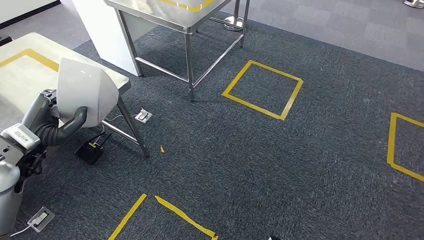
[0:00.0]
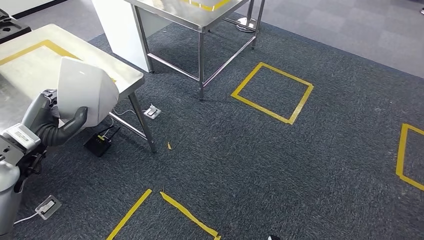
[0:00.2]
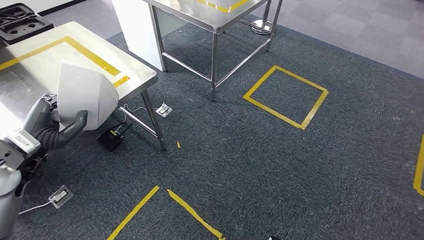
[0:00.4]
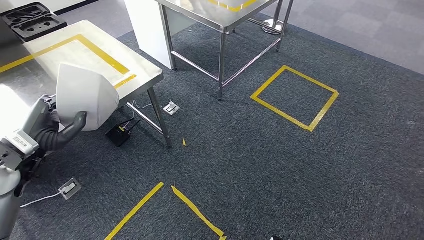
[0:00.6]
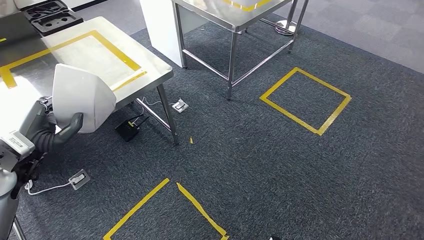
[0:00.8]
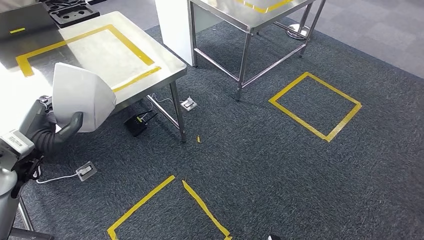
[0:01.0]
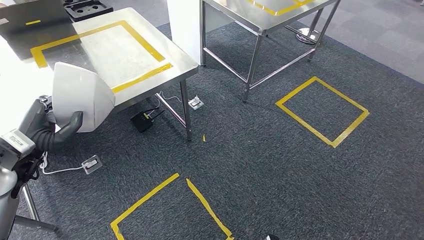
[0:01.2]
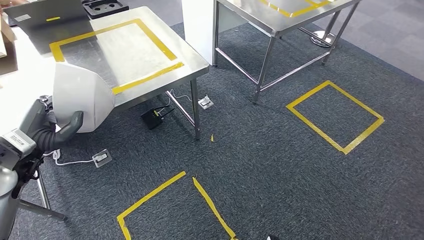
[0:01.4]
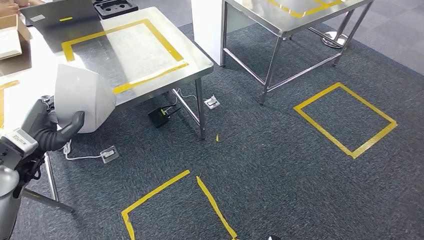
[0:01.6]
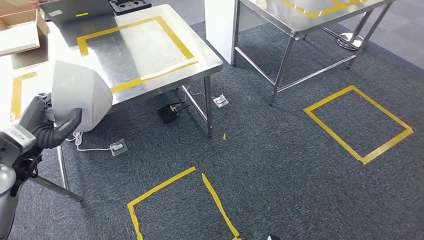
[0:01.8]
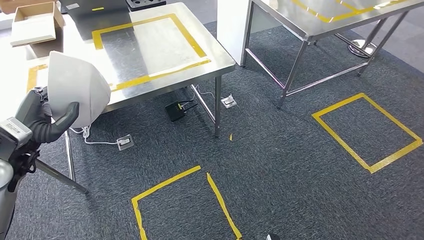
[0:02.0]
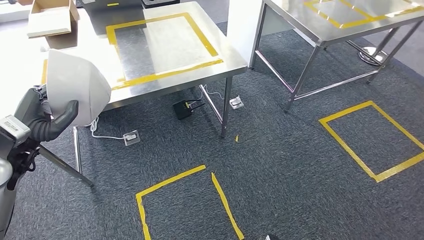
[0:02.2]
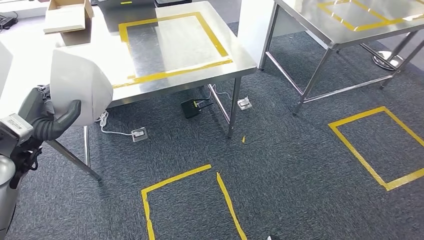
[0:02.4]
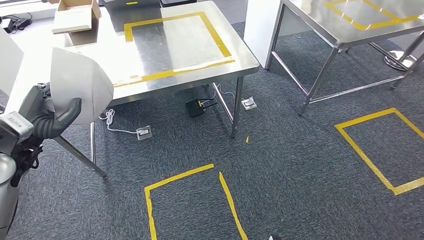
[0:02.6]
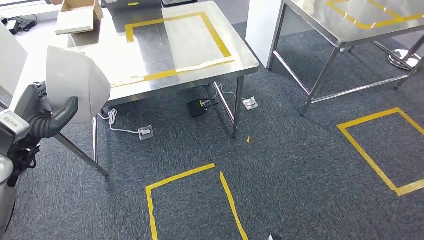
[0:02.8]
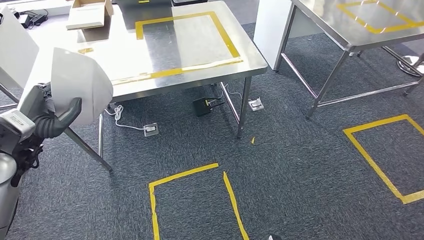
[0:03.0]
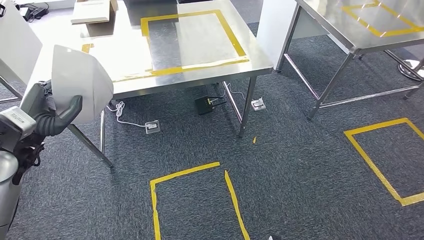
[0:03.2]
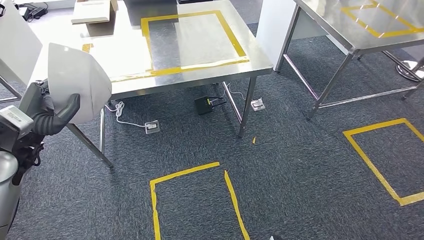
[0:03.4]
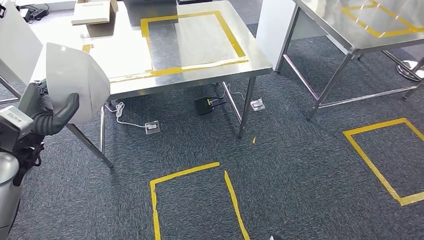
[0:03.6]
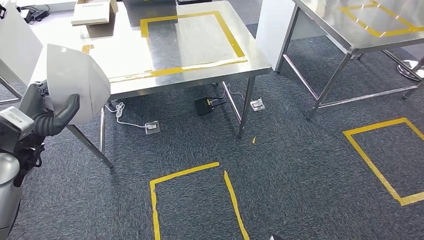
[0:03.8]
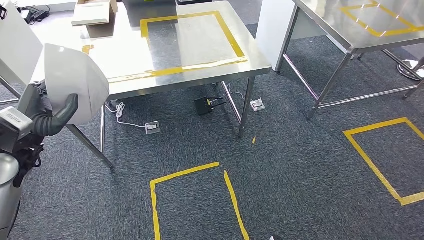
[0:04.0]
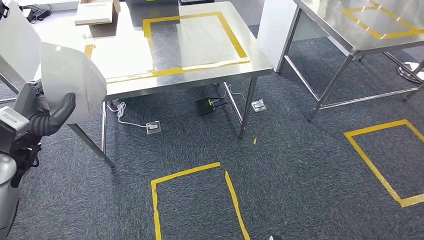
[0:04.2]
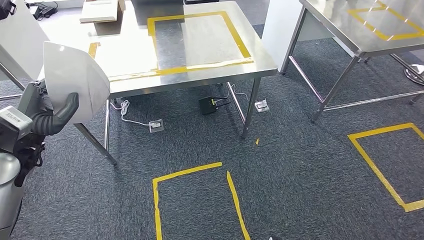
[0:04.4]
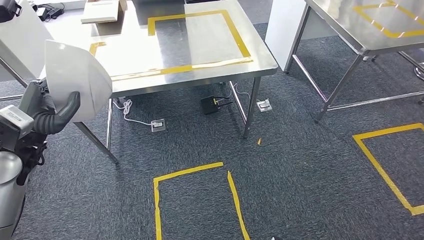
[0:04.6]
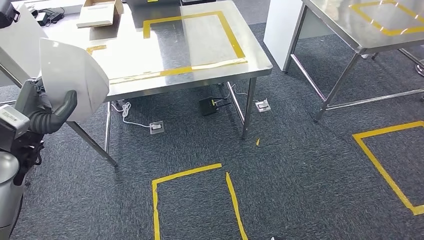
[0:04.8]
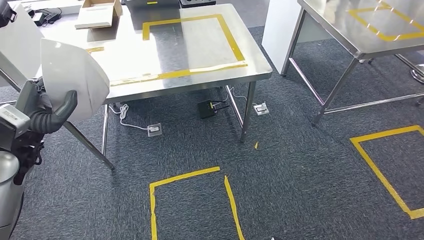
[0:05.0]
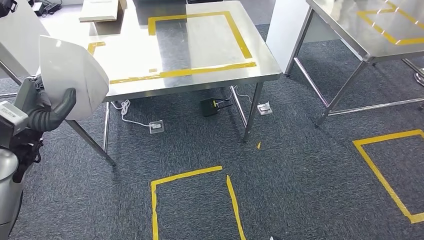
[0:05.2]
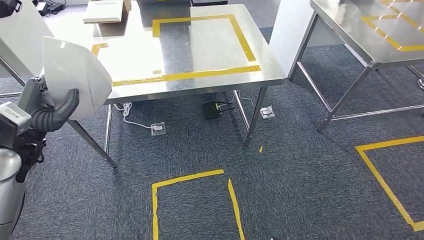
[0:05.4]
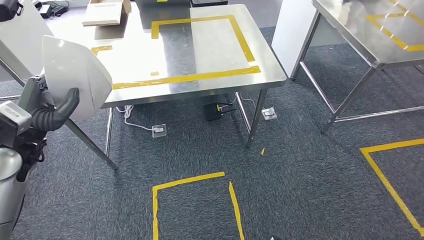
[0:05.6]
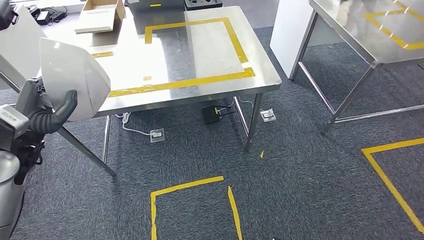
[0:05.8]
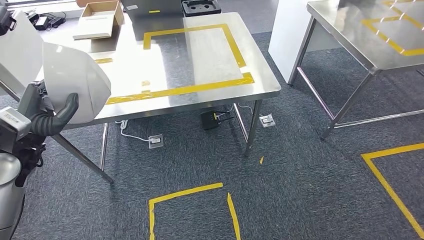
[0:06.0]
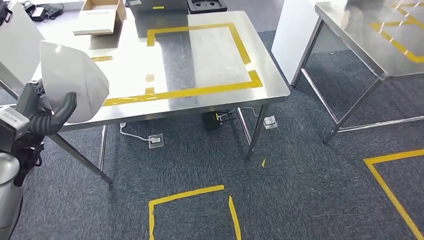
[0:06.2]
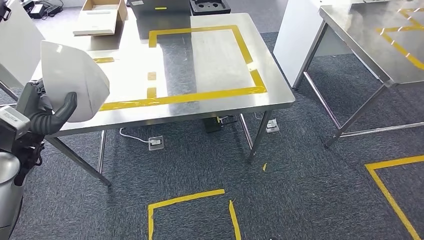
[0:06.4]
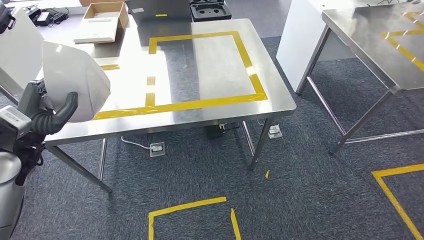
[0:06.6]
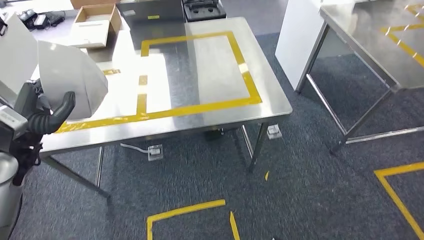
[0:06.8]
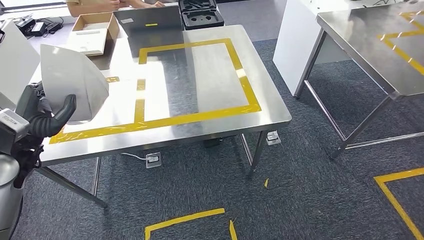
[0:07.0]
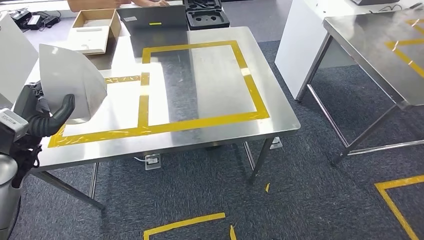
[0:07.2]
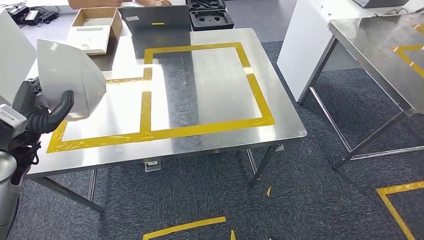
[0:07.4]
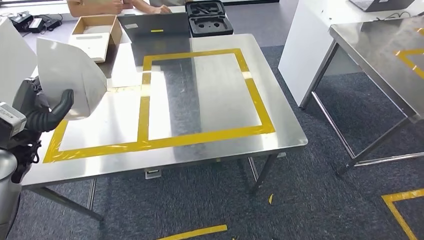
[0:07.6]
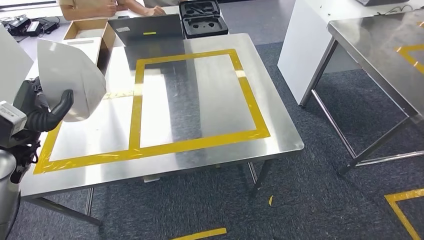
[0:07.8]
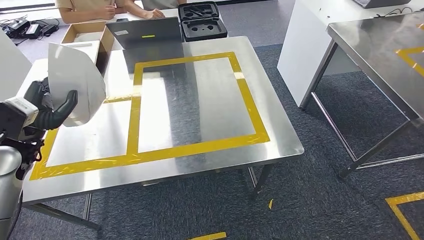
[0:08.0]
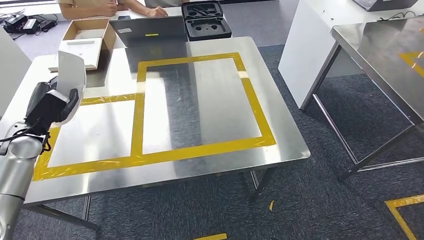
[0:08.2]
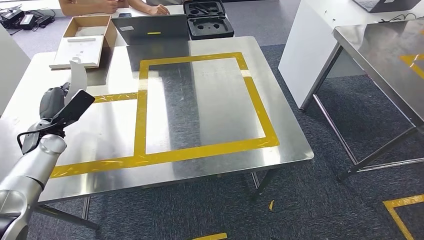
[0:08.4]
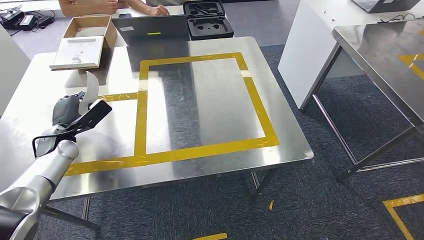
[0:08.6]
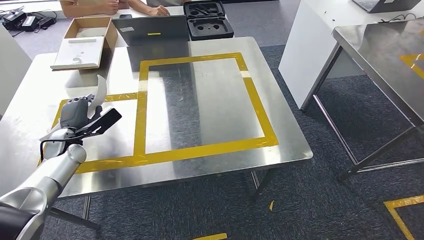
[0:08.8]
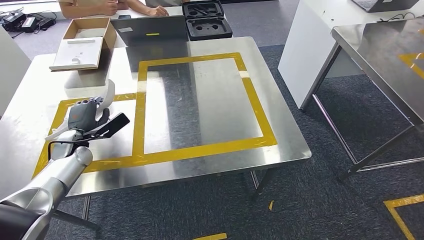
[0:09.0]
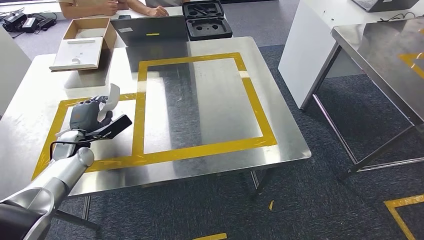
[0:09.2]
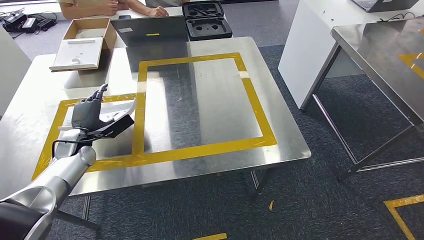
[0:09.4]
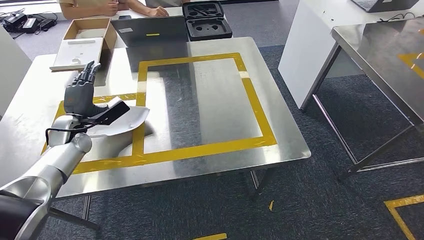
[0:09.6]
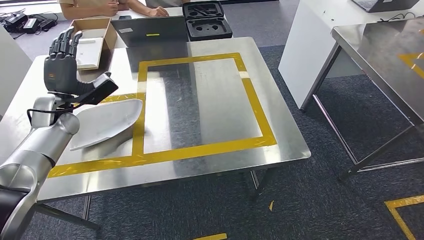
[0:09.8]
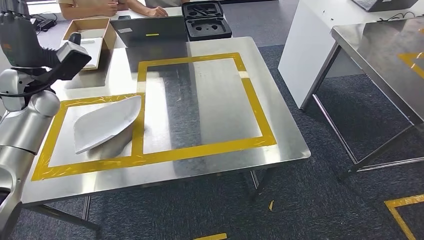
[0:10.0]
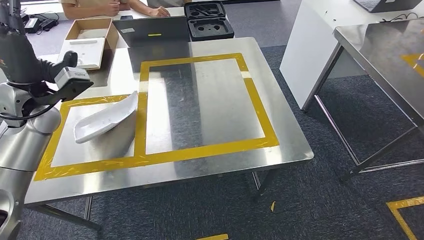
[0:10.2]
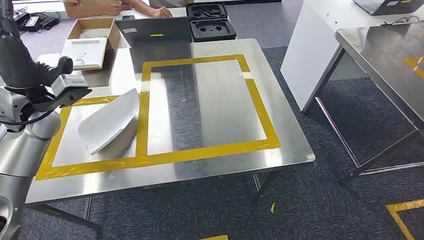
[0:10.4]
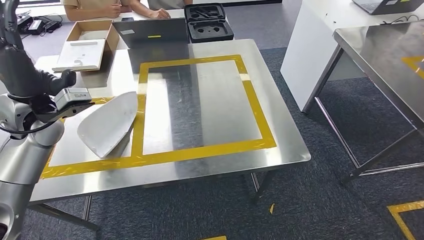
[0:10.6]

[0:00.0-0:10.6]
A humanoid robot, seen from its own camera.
Step, 0:00.0 to 0:07.4: Move the small component to the workbench.

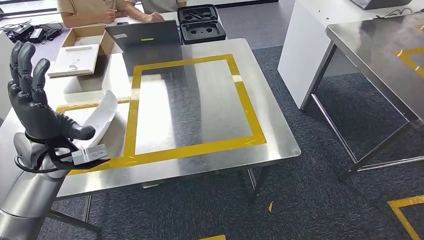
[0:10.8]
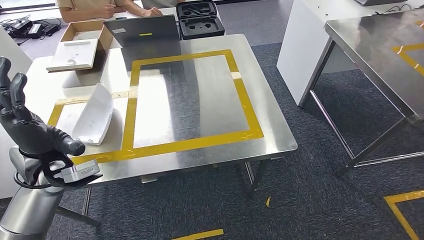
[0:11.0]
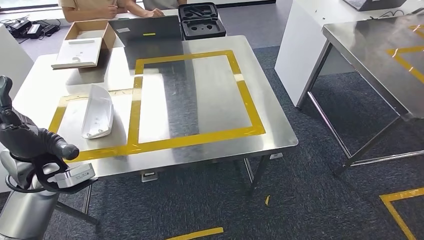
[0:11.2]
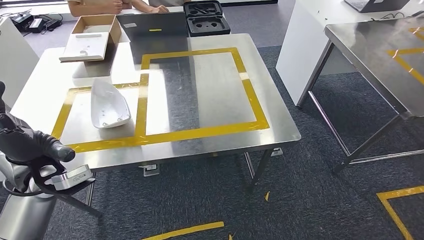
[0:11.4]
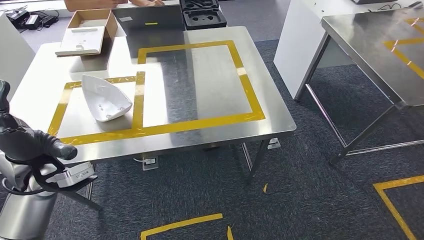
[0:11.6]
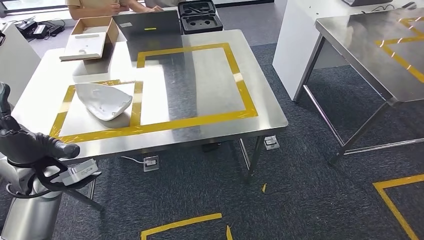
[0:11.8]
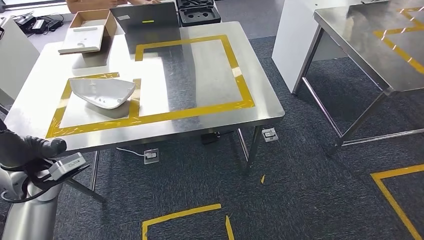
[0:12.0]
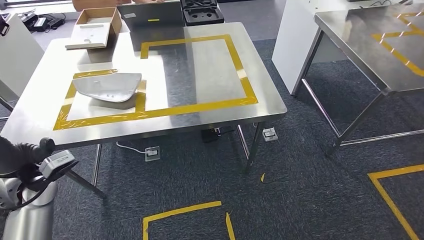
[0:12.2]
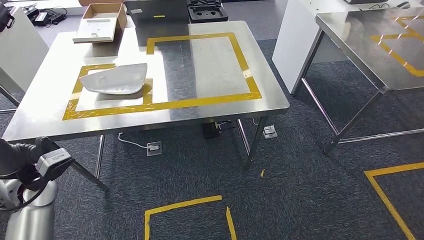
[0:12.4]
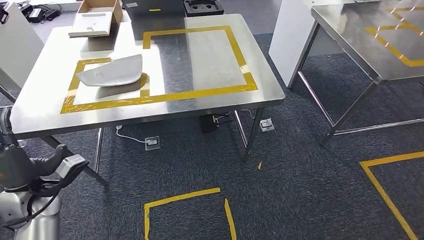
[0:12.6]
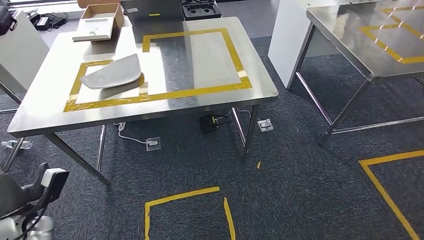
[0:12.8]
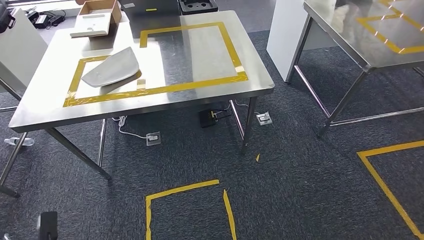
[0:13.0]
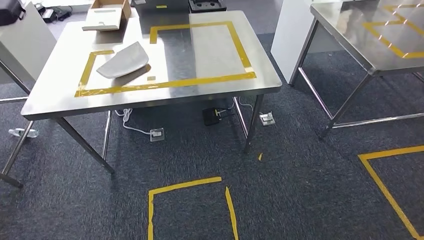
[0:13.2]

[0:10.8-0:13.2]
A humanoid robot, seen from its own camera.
Step, 0:11.2 to 0:13.2: Return to the initial position at the workbench.
